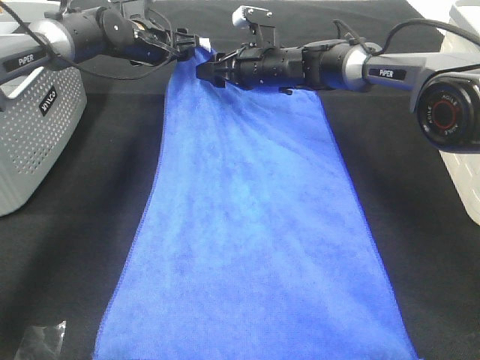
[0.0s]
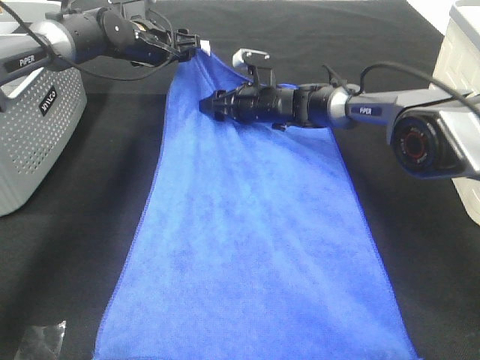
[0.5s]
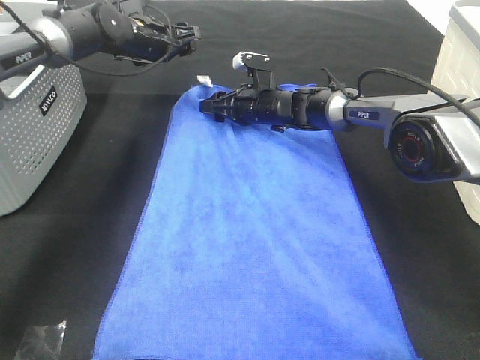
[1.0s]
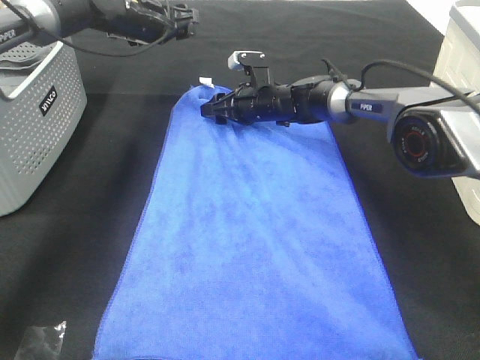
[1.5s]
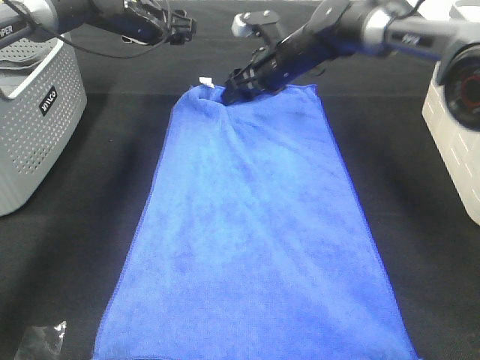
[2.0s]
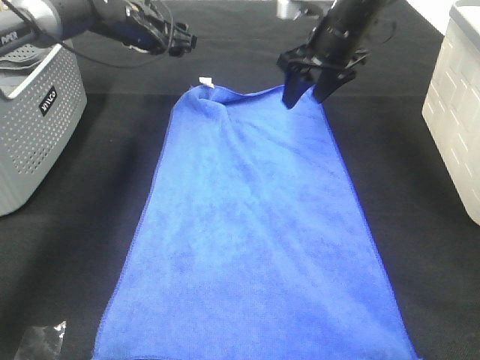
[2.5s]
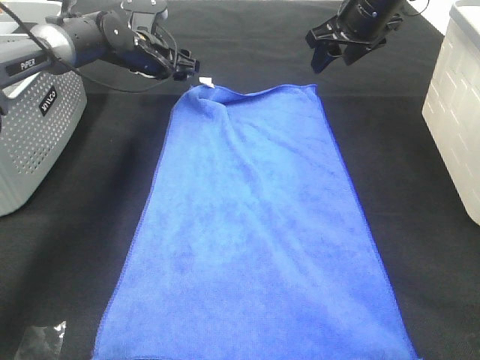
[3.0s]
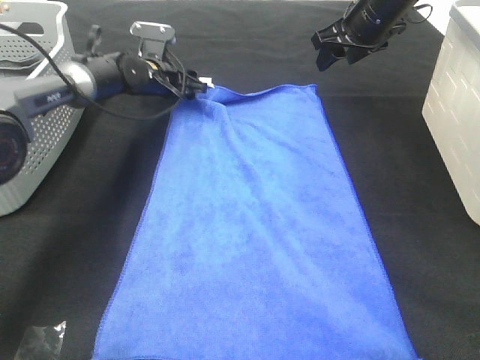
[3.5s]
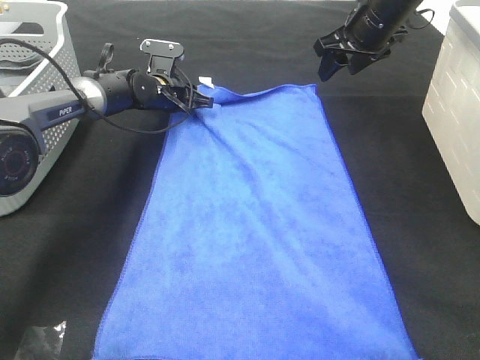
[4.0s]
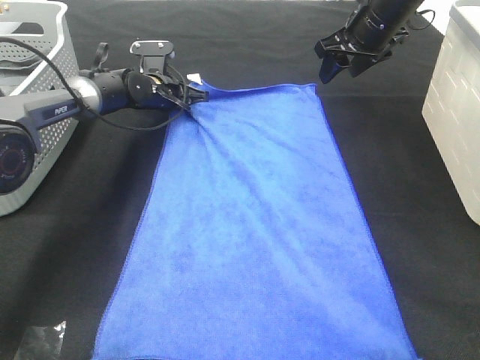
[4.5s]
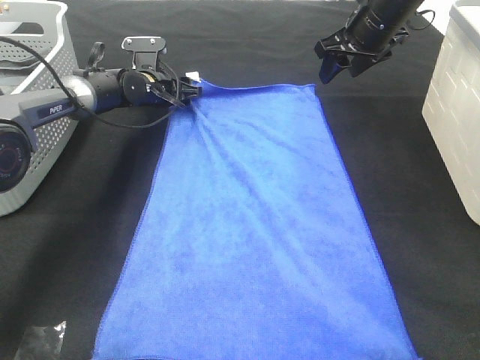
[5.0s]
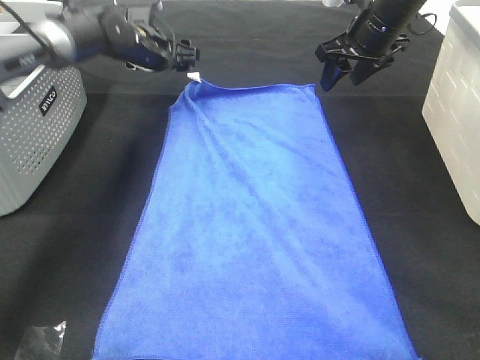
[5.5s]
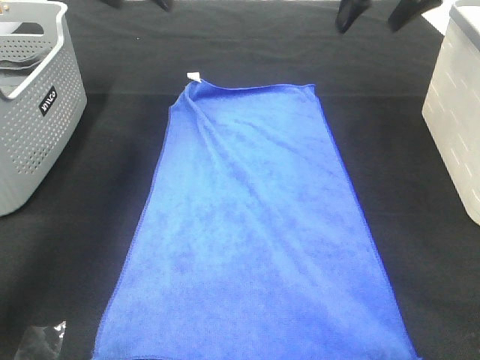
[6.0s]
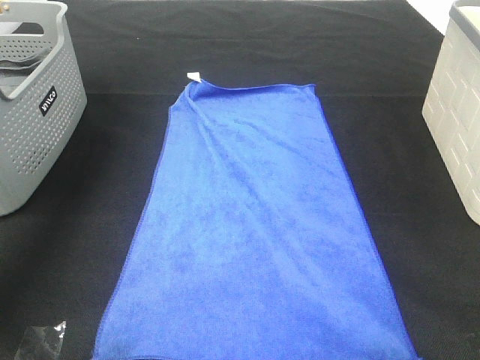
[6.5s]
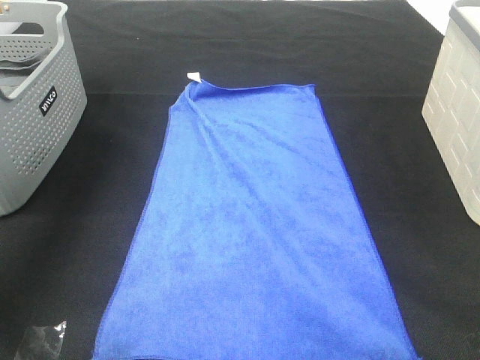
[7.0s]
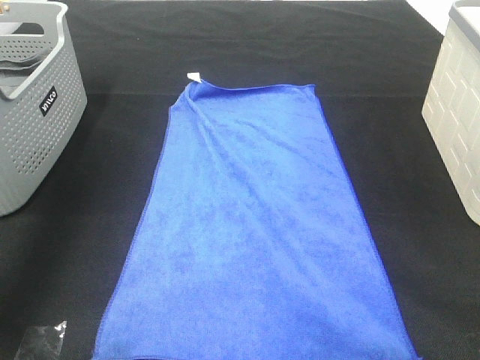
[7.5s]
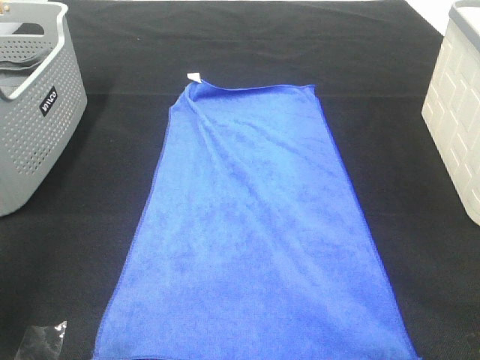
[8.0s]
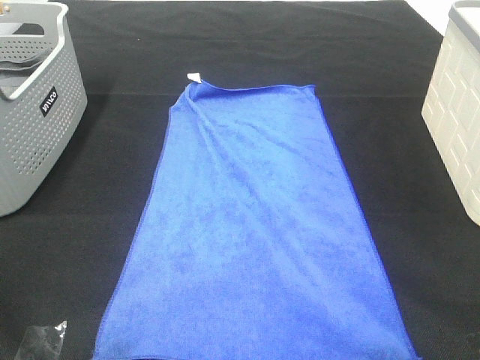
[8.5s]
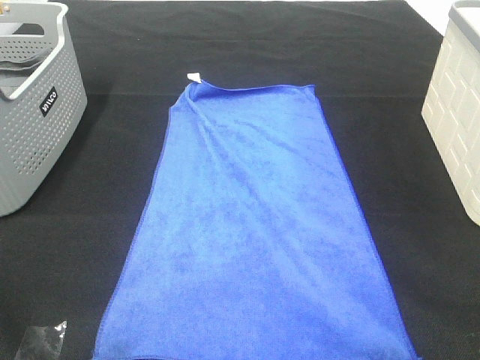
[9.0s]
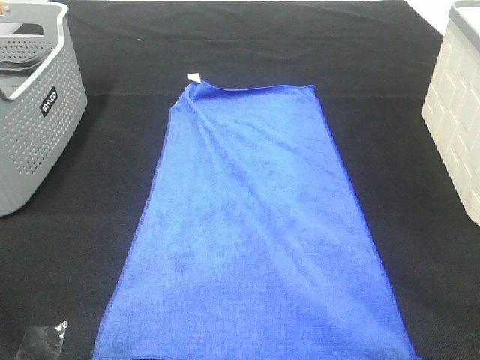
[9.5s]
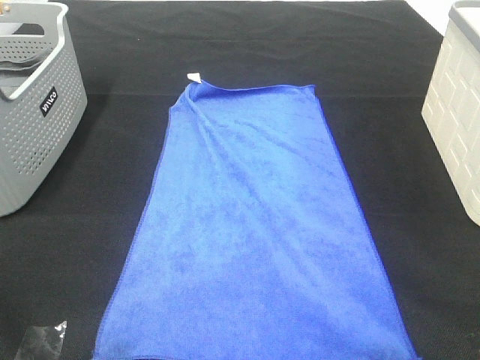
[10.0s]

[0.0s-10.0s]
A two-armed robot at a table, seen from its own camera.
Task of the whole recording: Remove the towel and place it.
0.0s to 2.0s: The right gripper reaches some 10 cm downward, then returns.
2.0s to 4.0s: The right gripper goes some 15 cm to the right and upward. Meanwhile the left gripper is displaced downward by about 15 cm.
4.0s to 6.0s: The left gripper goes about 25 cm upward, and opens; the right gripper shifts roughly 10 cm upward and backward.
6.0s to 8.0s: The two grippers go about 40 cm backward.

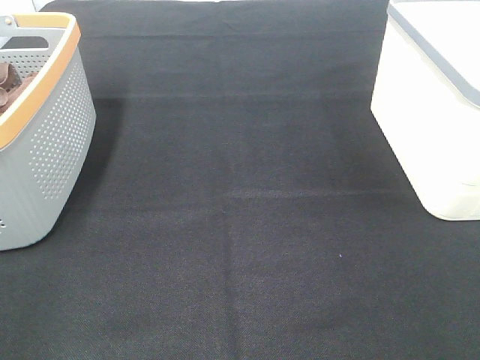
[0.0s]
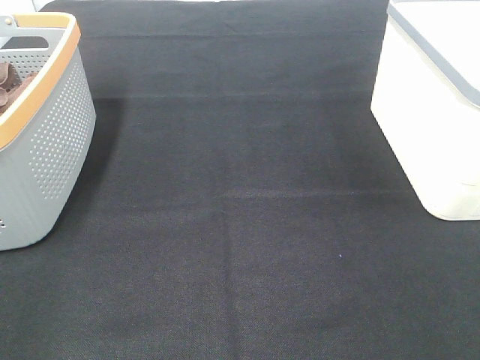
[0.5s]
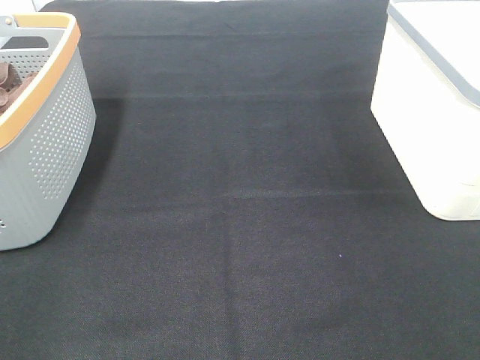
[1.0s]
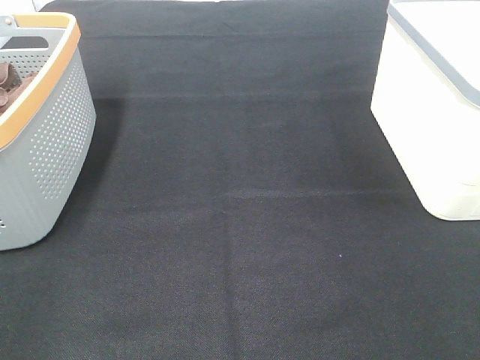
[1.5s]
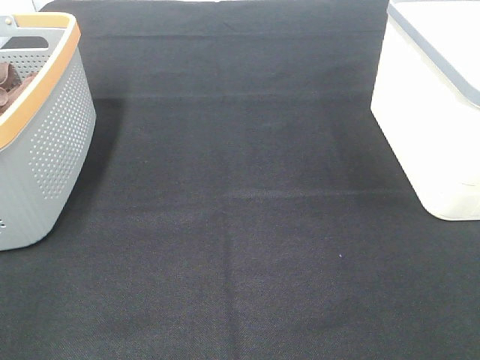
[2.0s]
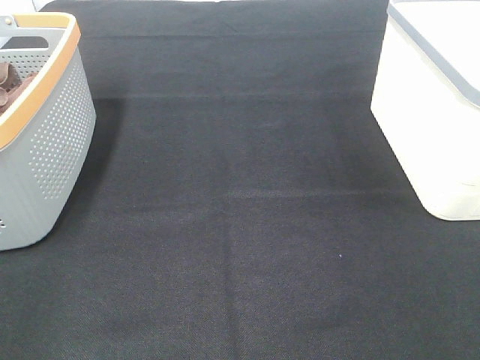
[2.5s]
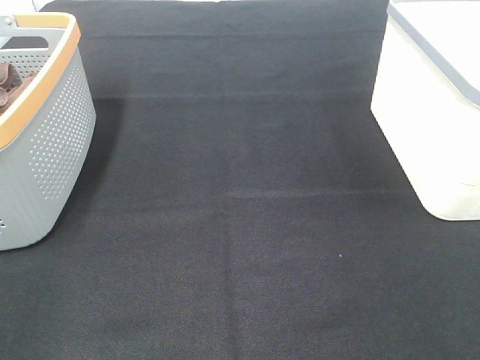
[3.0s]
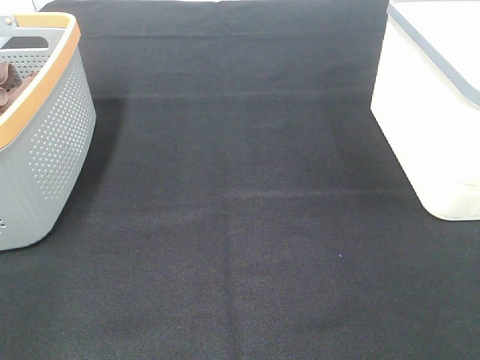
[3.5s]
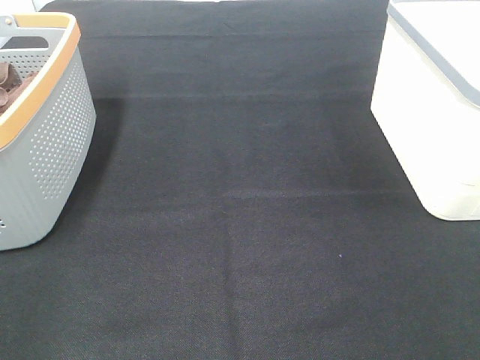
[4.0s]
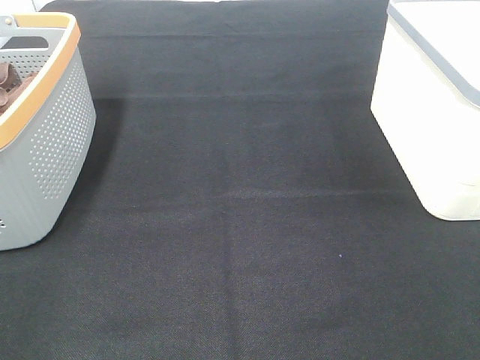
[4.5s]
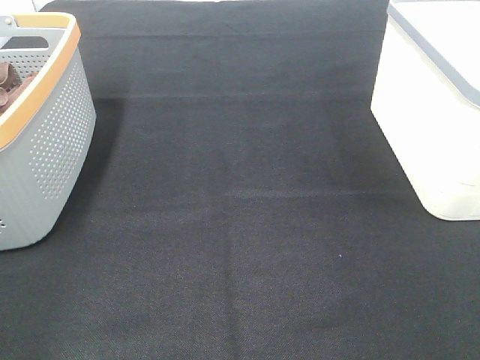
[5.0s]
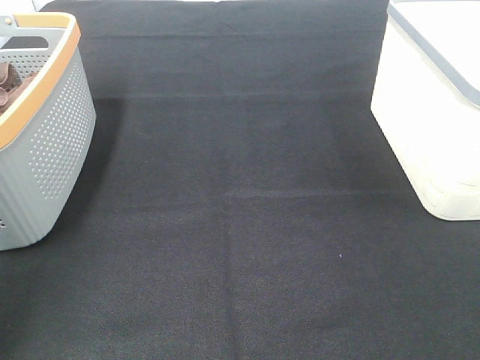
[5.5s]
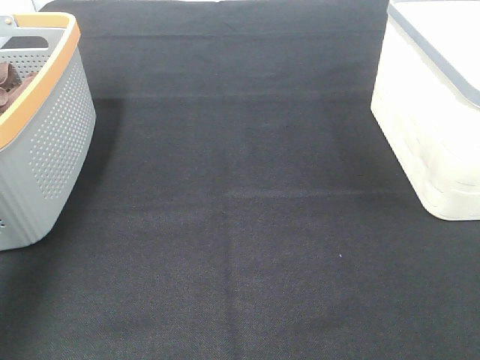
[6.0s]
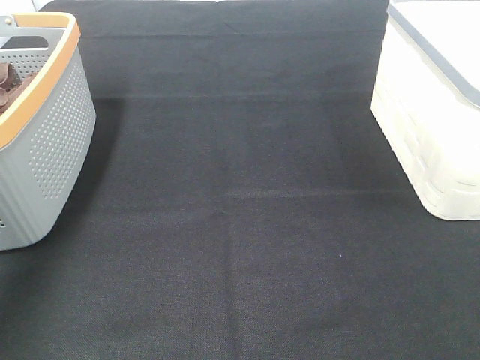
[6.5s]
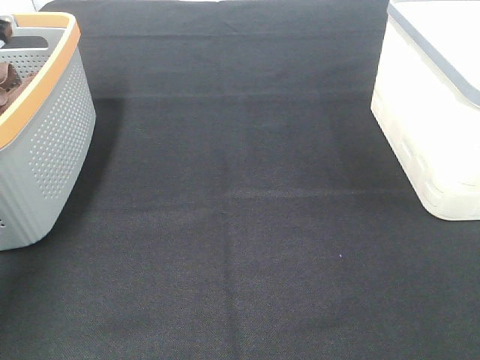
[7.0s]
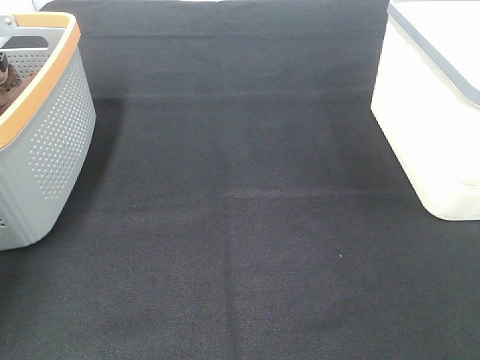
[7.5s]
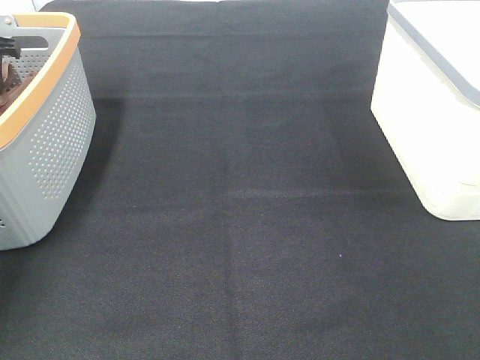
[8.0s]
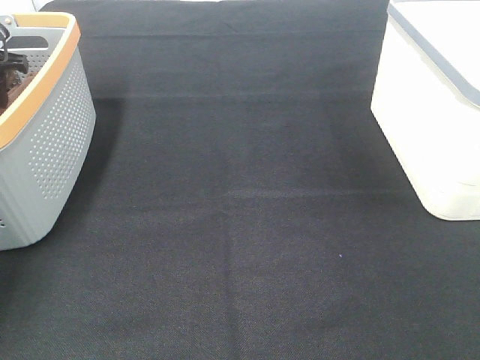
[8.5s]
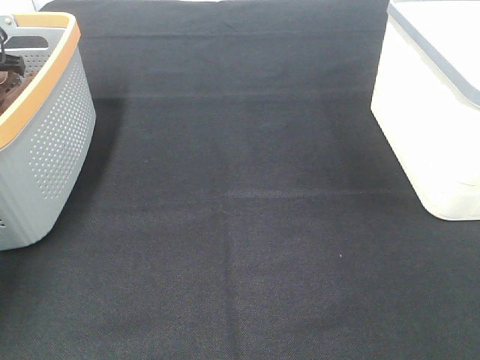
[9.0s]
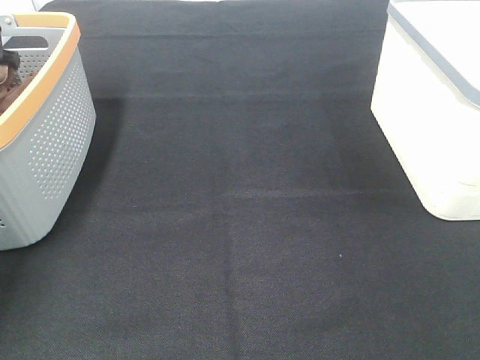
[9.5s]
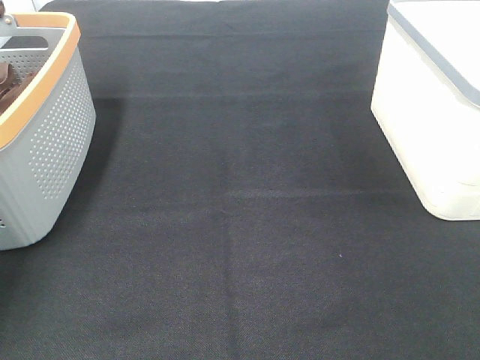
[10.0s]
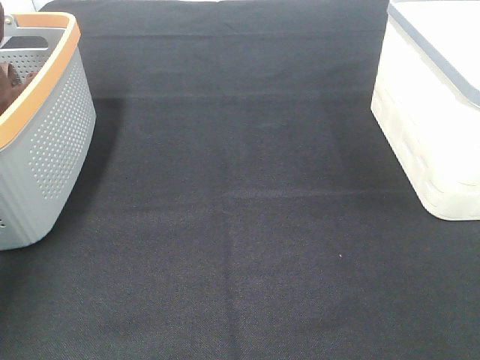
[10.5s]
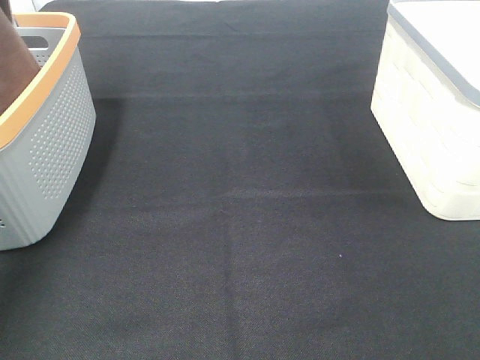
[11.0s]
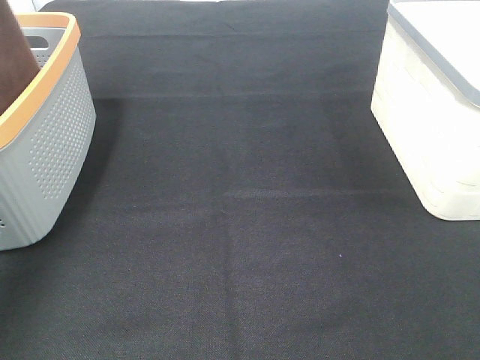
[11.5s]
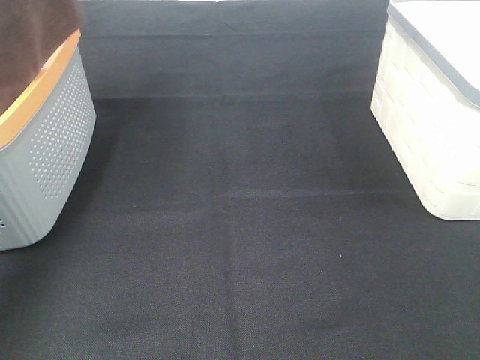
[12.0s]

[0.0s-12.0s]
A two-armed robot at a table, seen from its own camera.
Task of the whole recording: Remove the towel and place it.
0.0s to 4.0s: The two grippers keep their place.
4.0s to 6.0s: The left gripper heads forward, covering approximately 30 cm.
6.0s to 8.0s: The left gripper is displaced forward and downward by approximately 20 cm.
10.0s to 12.0s: The left gripper is displaced upward and backward by roughly 30 cm.

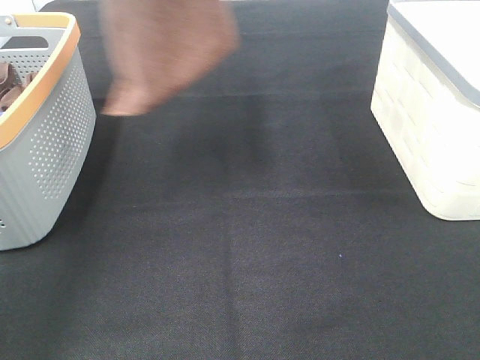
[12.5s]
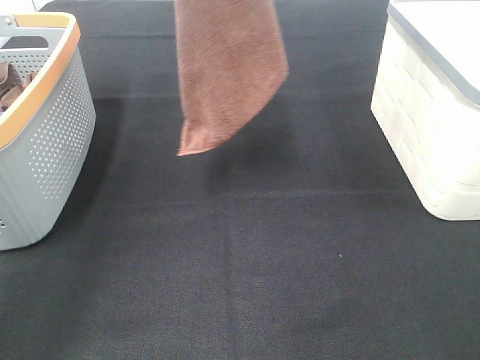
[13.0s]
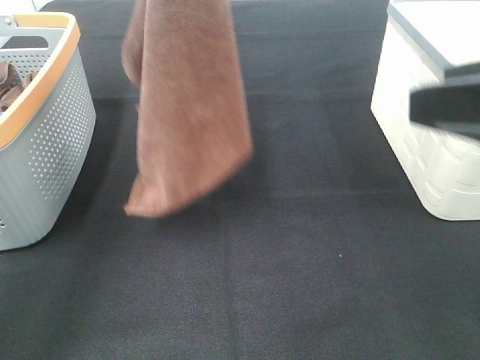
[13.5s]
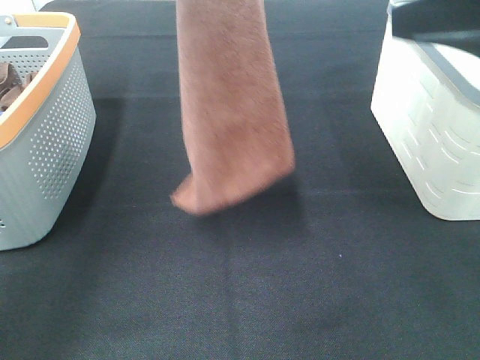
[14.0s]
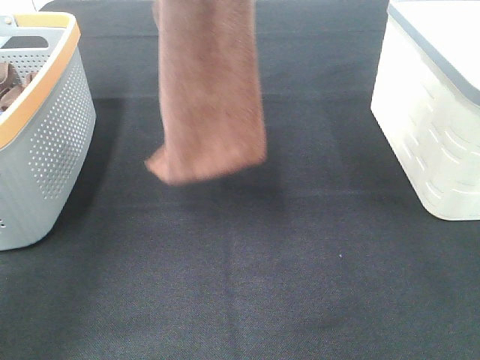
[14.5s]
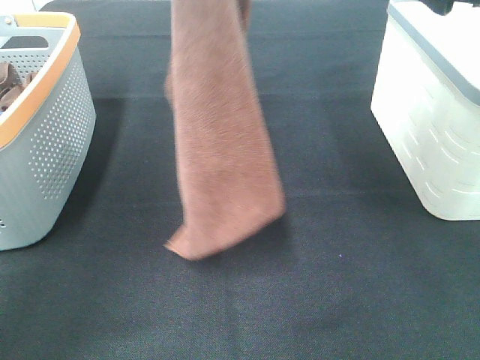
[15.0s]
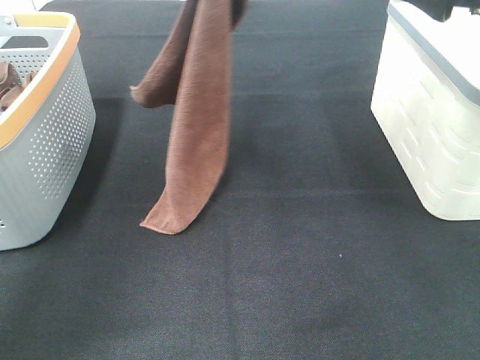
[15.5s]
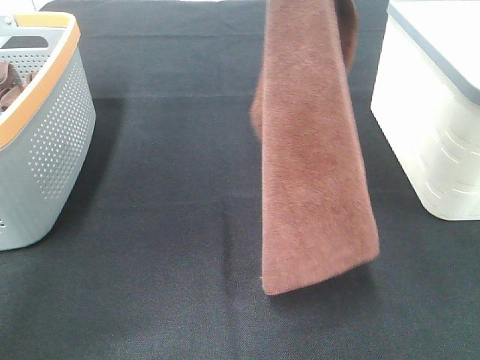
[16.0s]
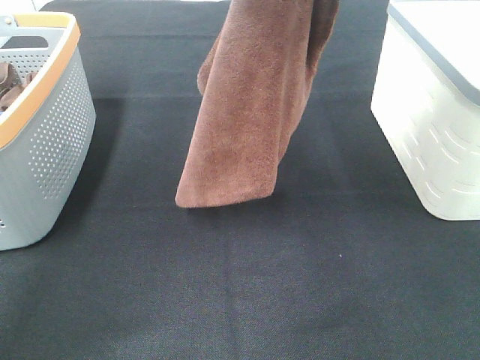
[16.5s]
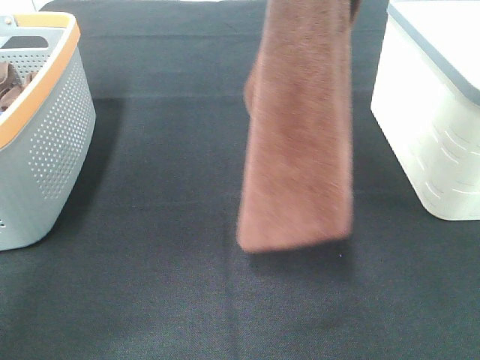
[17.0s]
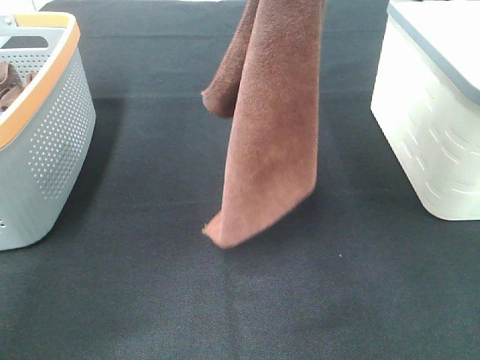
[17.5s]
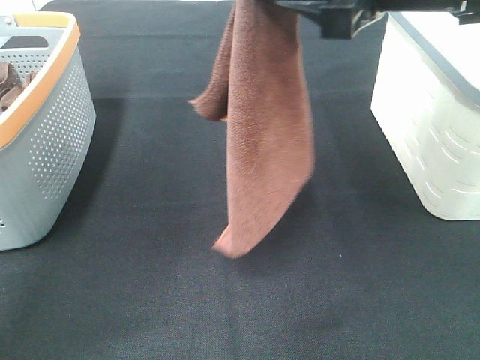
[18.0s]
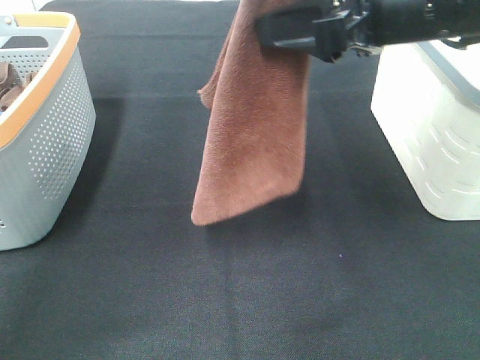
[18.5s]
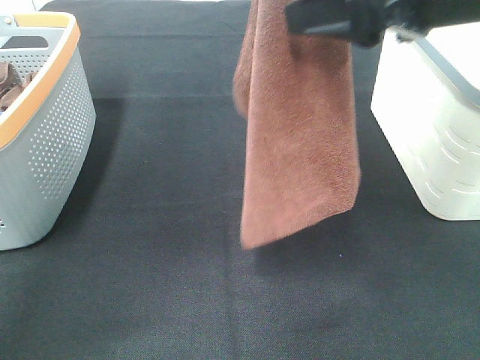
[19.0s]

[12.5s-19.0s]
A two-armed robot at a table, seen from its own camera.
Task of the whole recording: Remove the towel and place it.
12.5s to 14.5s: The right gripper moves forward, approximately 20 cm, while the left gripper shifts by some 5 cm.
14.5s to 17.0s: The left gripper travels to the right by some 5 cm.
